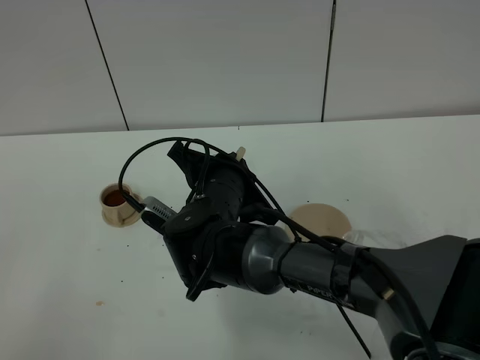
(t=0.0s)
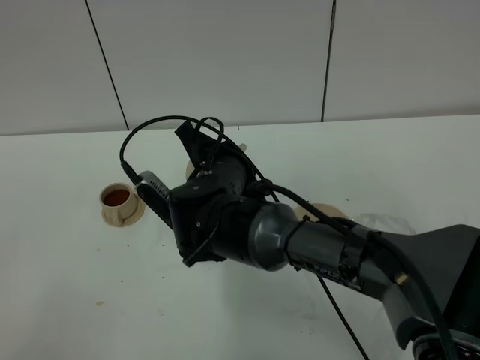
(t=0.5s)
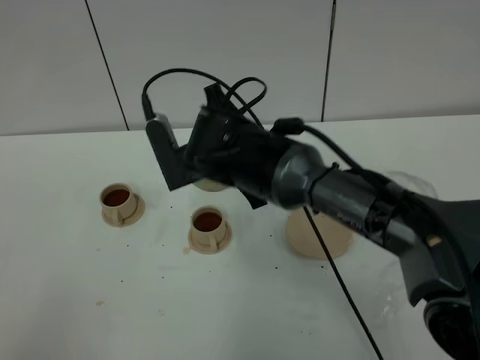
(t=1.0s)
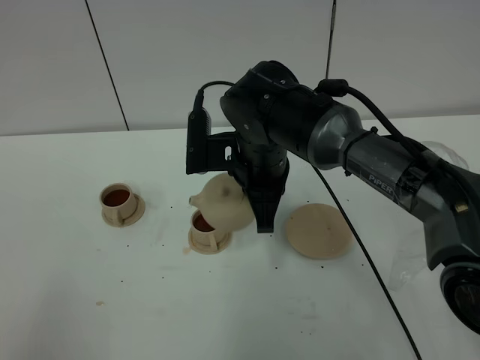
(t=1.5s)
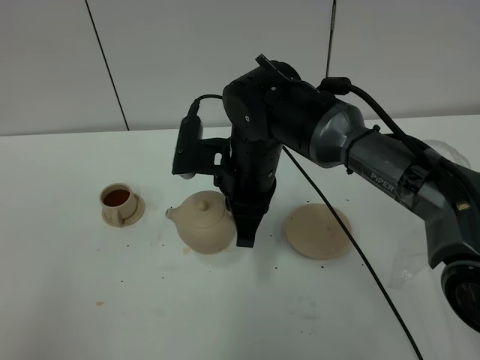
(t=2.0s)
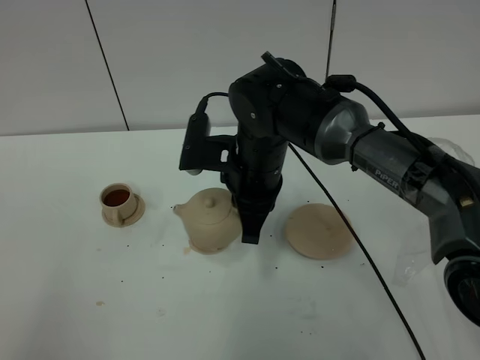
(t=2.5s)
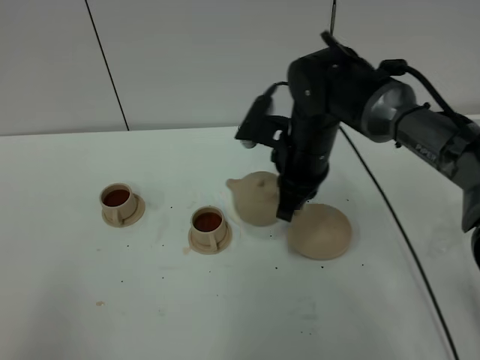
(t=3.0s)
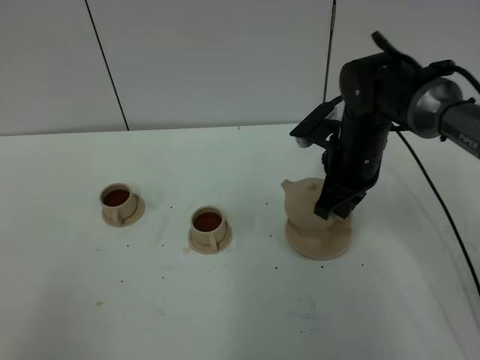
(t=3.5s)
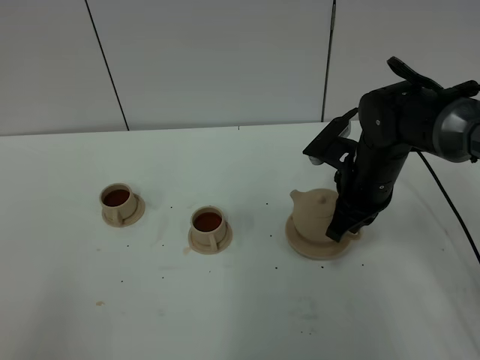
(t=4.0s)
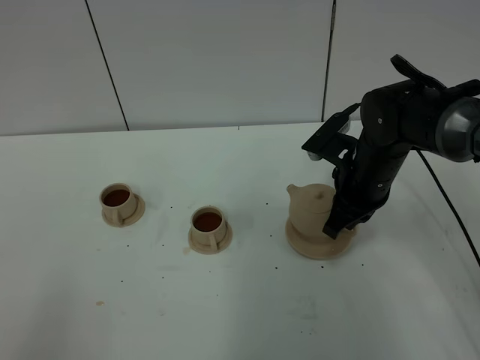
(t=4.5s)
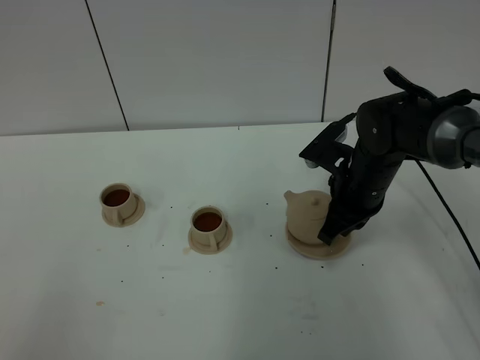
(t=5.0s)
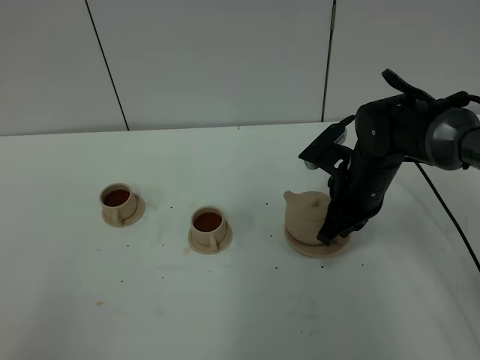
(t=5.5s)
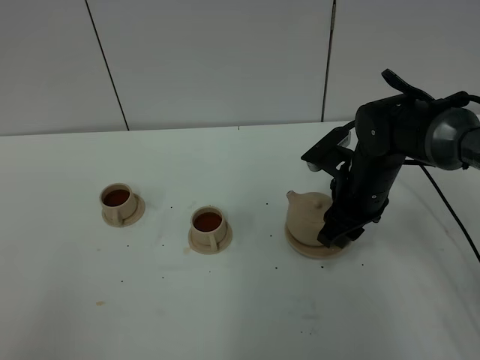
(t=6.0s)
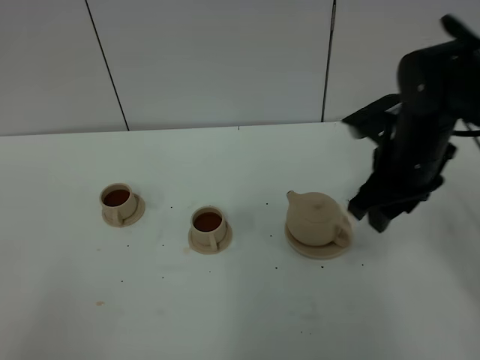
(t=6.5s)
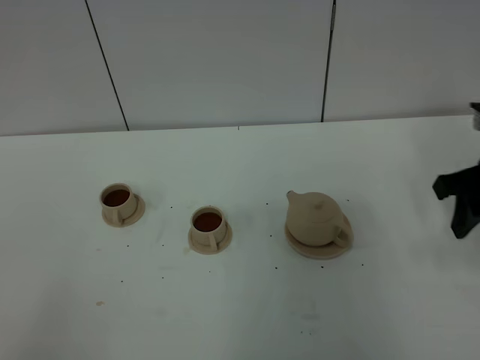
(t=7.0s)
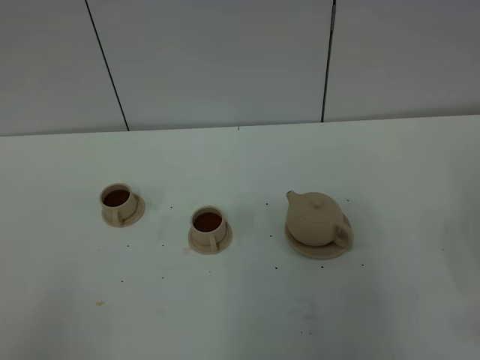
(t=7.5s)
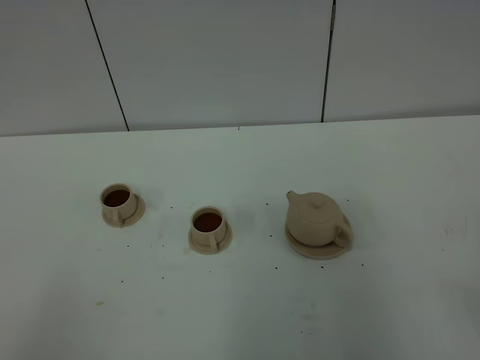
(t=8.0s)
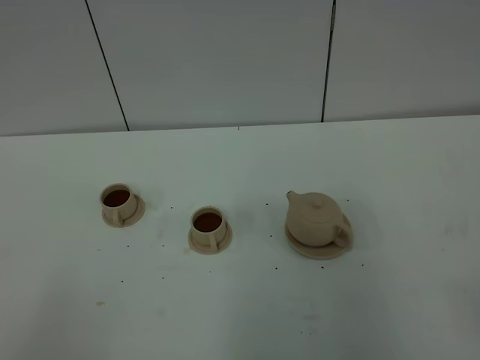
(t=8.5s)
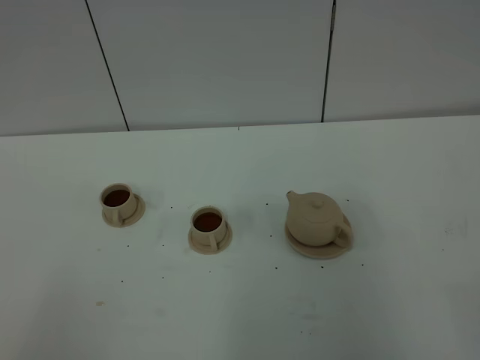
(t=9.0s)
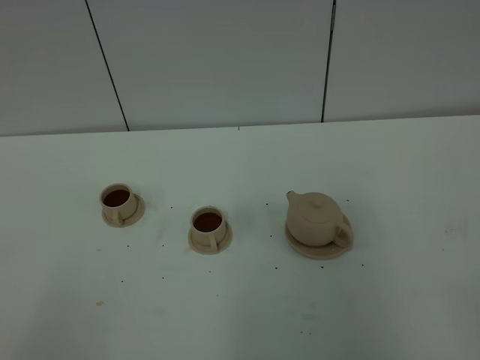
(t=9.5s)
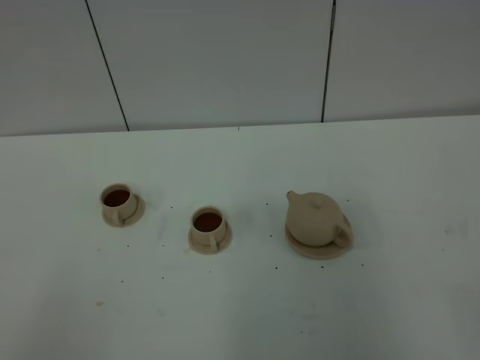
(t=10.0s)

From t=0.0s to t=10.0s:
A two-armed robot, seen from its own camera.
Task of the whole recording: grasp the brown teapot and pour the tea into the two brown teacups one by one, put the brown teapot back in its original place.
From t=0.0s to t=2.0s: The right gripper shifts by about 5 cm.
From t=2.0s to t=4.0s: The right gripper heads to the right, covering about 15 cm.
From t=4.0s to t=6.0s: The right gripper opens its fingers.
From t=6.0s to t=8.0s: The right gripper travels backward and to the right by about 35 cm.
